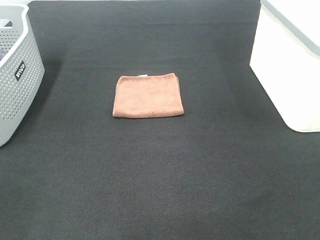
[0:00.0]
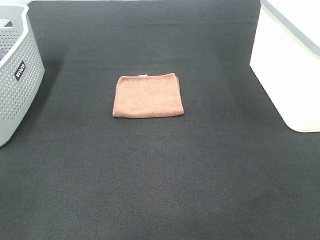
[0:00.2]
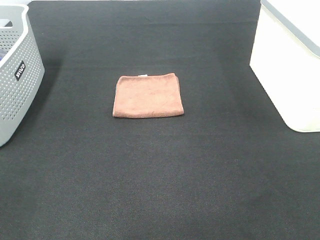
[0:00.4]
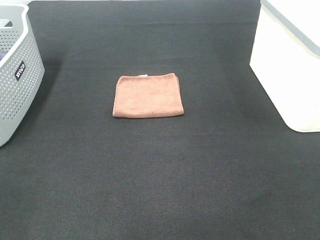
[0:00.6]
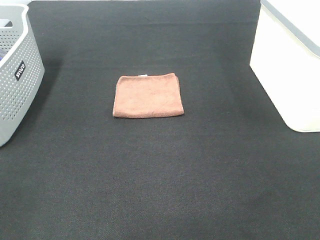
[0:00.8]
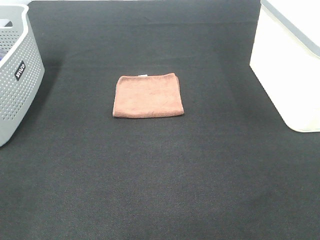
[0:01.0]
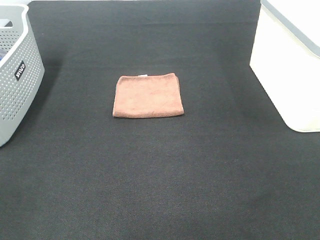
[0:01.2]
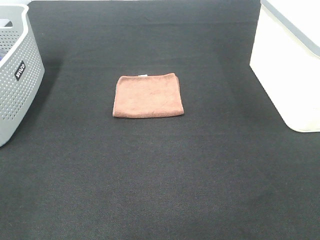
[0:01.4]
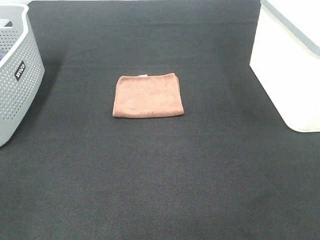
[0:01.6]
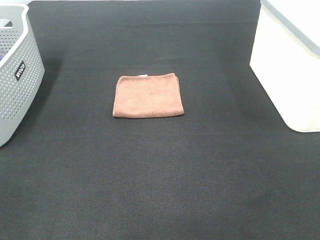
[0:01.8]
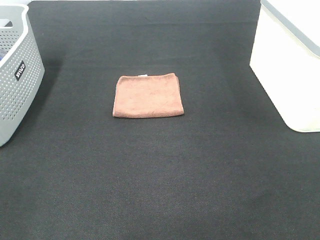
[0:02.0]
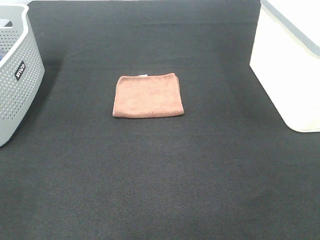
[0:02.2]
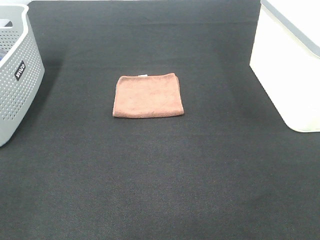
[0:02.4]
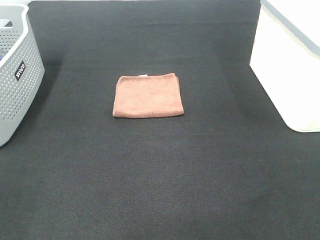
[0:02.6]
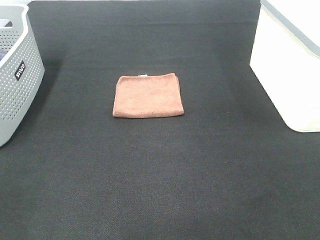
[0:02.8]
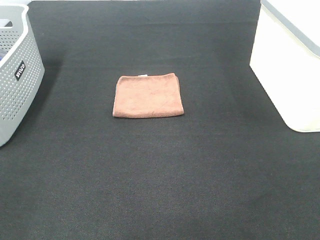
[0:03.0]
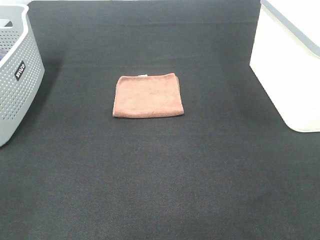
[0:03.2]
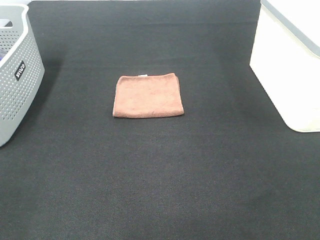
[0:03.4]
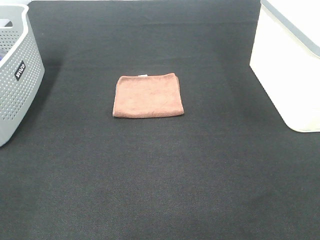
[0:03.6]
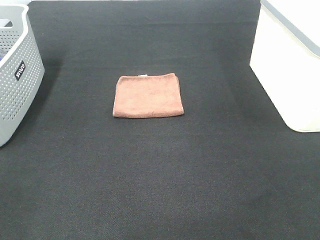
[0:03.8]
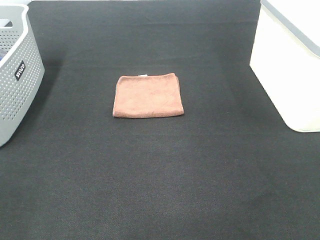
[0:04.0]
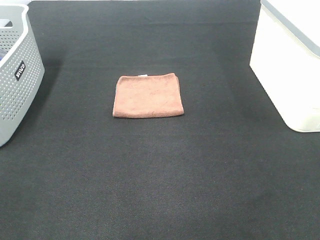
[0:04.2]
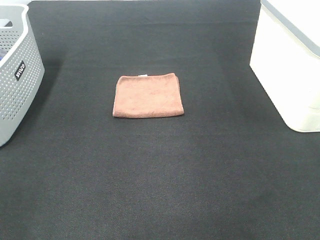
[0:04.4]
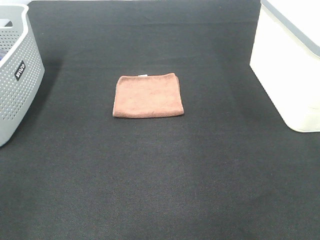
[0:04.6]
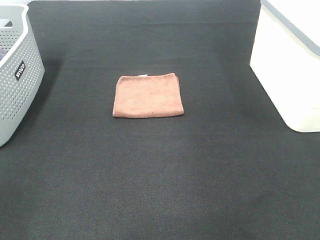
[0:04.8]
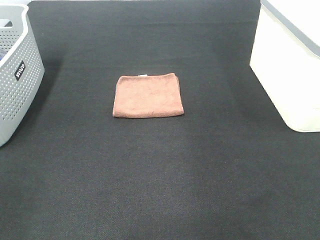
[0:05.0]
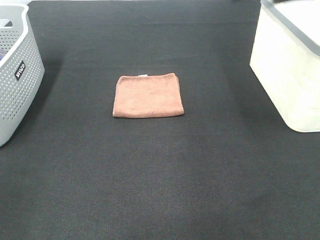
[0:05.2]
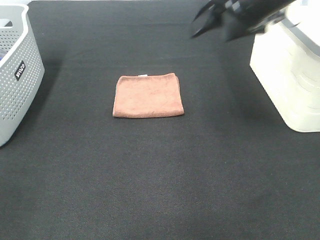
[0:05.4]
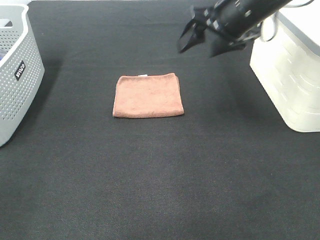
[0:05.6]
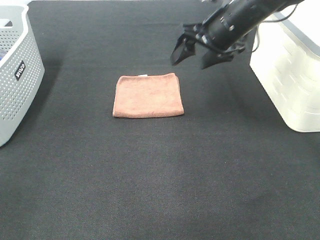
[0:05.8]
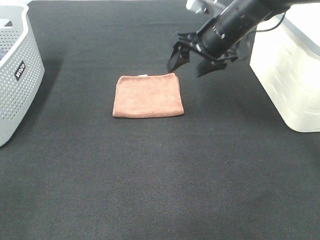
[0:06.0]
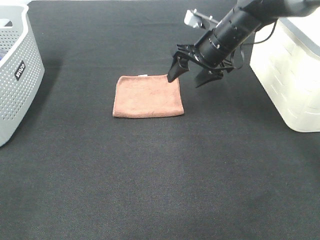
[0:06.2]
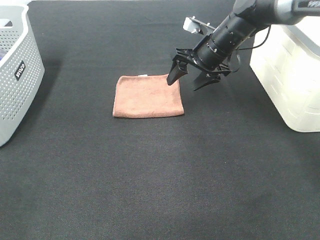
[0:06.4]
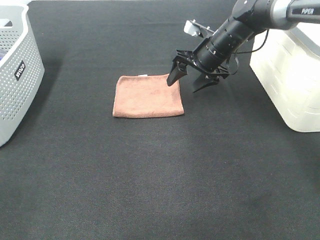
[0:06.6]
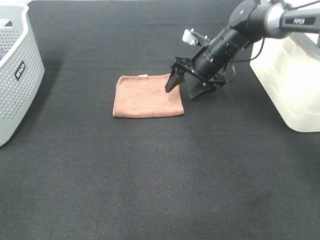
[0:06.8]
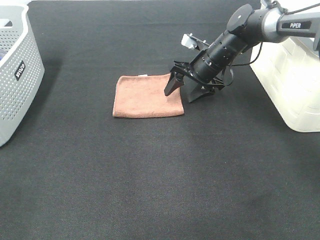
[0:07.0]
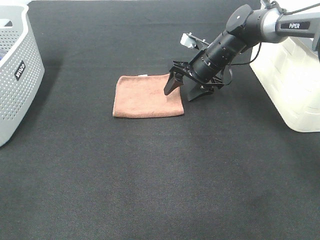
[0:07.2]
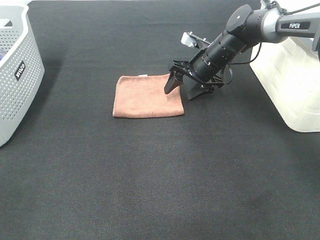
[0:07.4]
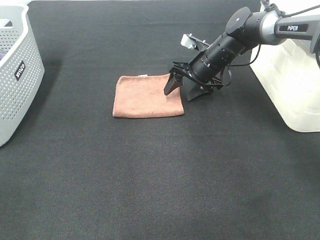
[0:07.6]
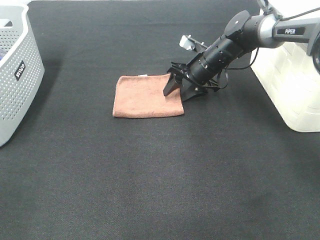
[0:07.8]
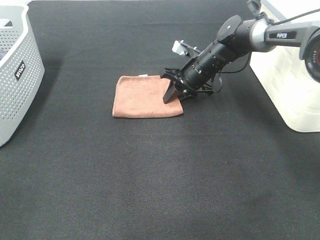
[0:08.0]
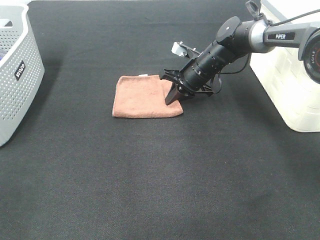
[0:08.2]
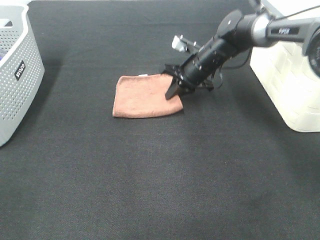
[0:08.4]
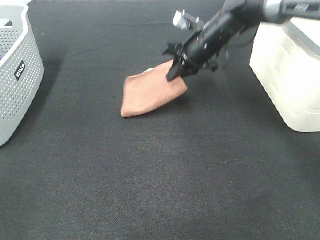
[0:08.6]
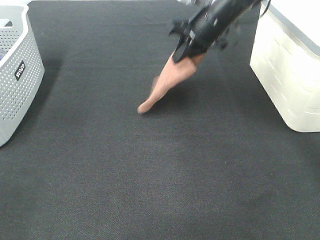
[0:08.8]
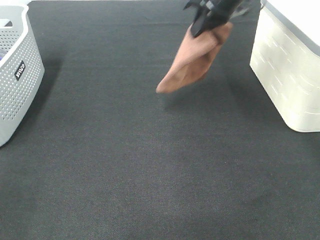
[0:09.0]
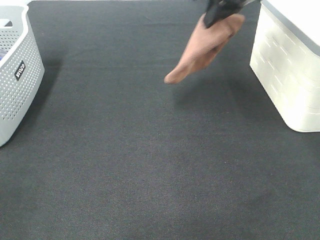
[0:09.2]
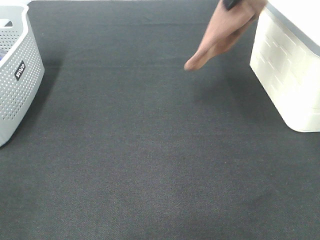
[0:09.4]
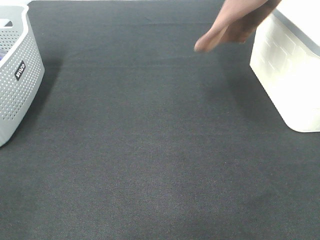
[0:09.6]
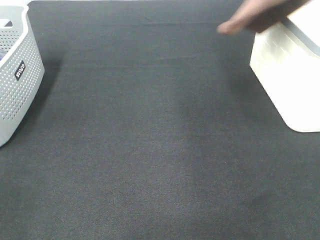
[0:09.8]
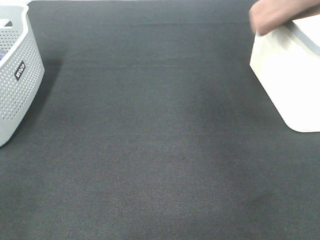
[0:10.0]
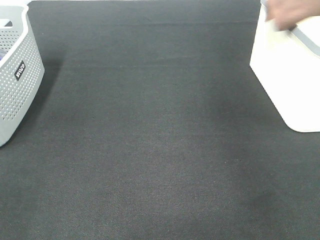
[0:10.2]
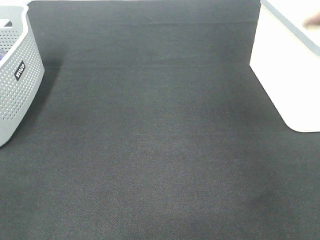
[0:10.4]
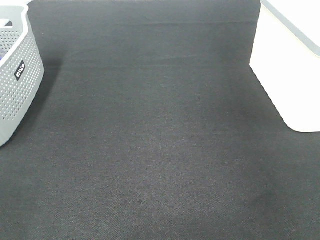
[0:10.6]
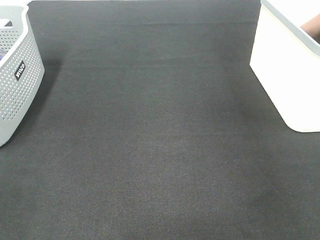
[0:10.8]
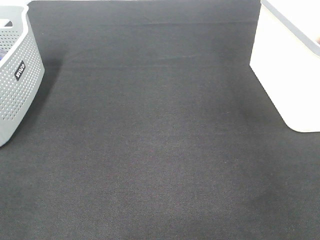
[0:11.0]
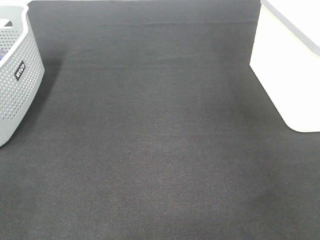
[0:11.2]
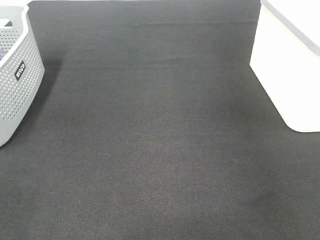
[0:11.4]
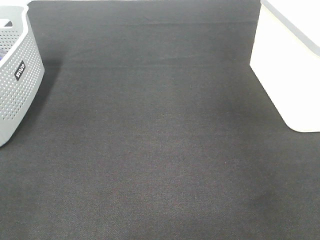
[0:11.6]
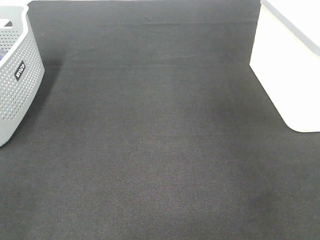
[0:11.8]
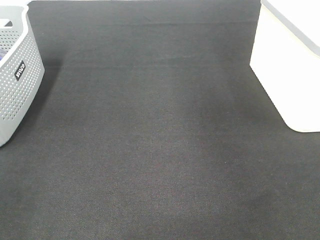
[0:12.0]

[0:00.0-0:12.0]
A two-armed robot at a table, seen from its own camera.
Step, 0:00.0 to 0:08.2: Right hand: grab the folded brown towel.
Step, 0:08.4 to 0:11.4: Right hand: place the brown towel in right basket.
0:00.0 to 0:03.0: The two grippers keep their place.
0:04.4 to 0:06.0: The right gripper moves forward, downward and to the left, approximately 35 cm.
0:06.0 to 0:07.6: The right gripper shifts roughly 10 cm downward and forward.
0:07.6 to 0:09.0: The right gripper is displaced upward by some 20 cm, and closes its fingers.
0:09.0 to 0:10.4: The right gripper goes roughly 30 cm to the right and upward.

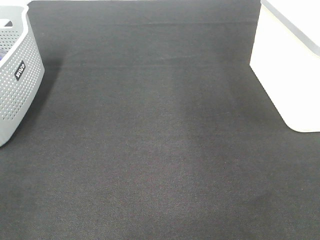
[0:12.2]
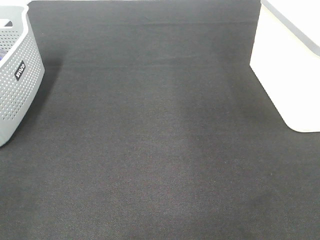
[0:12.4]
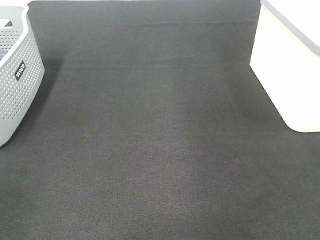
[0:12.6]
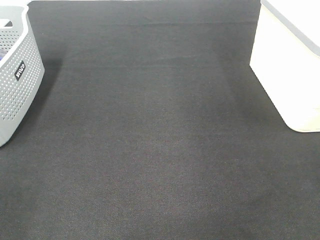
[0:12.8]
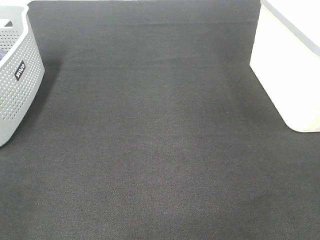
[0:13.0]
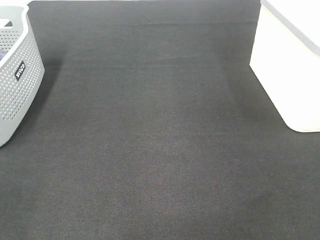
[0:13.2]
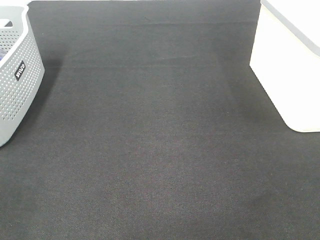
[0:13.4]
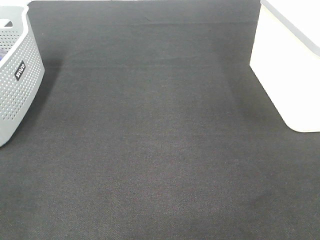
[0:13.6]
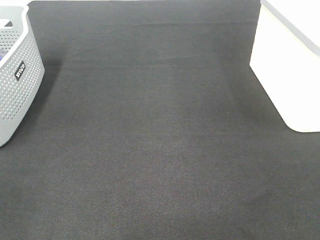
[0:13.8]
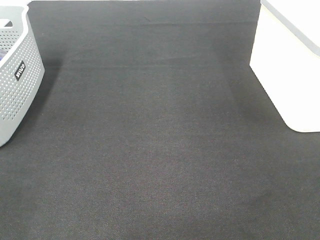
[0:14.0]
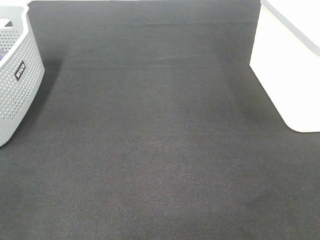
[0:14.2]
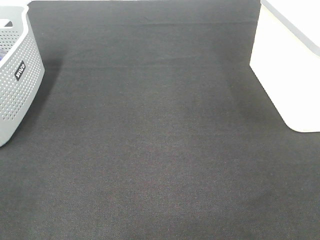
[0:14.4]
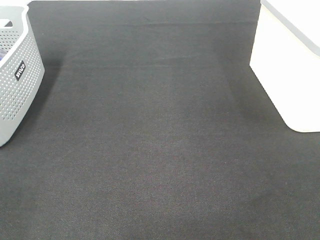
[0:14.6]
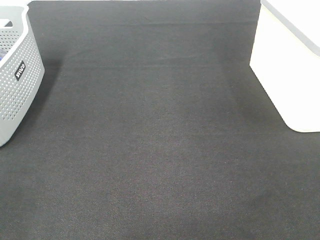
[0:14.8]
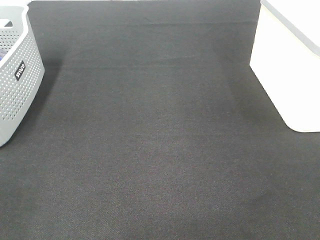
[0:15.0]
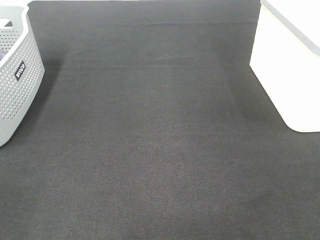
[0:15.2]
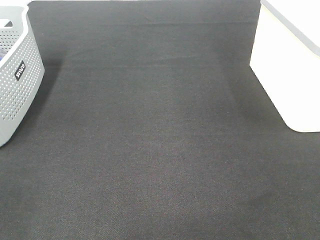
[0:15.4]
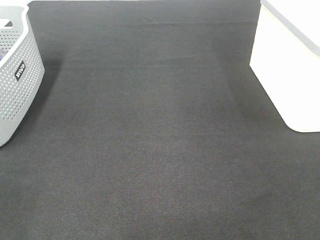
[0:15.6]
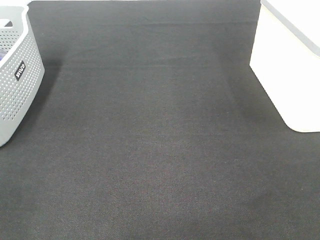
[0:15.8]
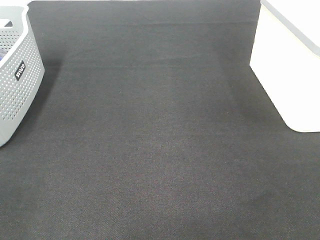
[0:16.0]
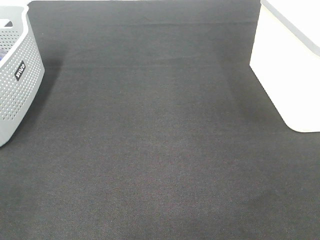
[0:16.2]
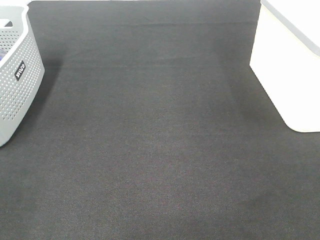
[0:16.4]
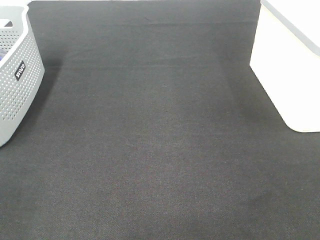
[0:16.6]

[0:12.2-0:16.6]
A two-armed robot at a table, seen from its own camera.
0:15.2 to 0:16.6: Both grippers stay put.
